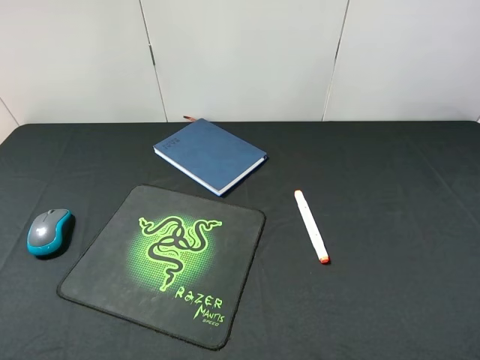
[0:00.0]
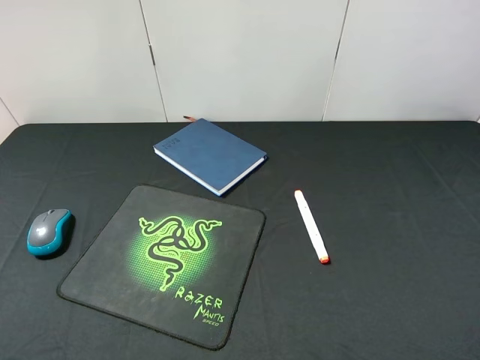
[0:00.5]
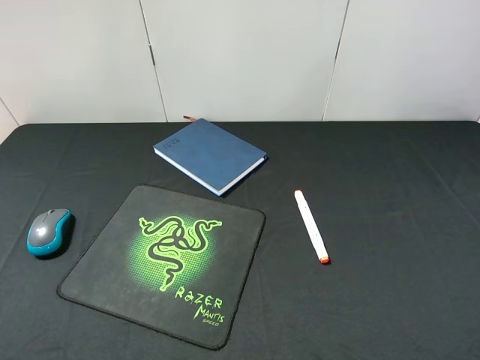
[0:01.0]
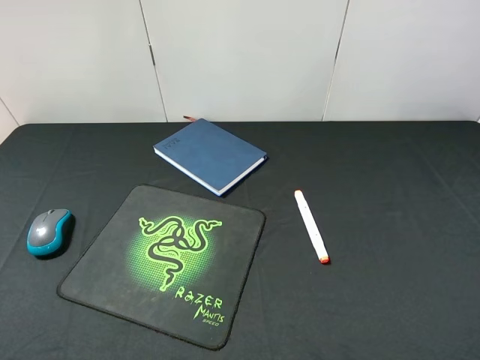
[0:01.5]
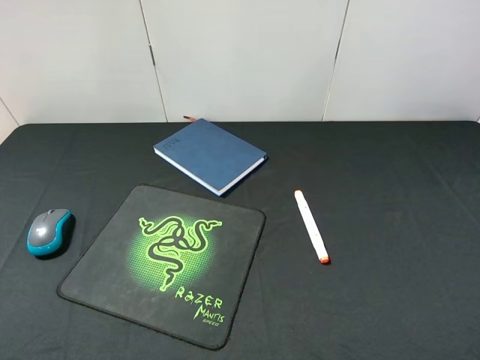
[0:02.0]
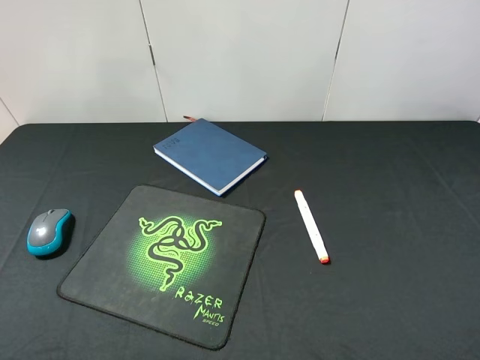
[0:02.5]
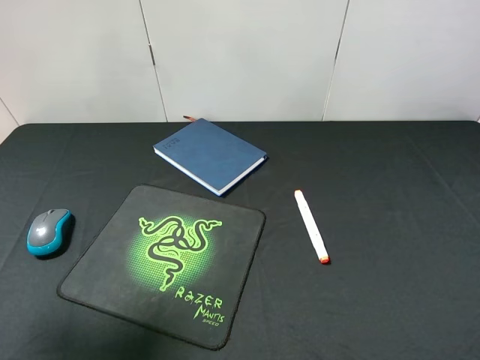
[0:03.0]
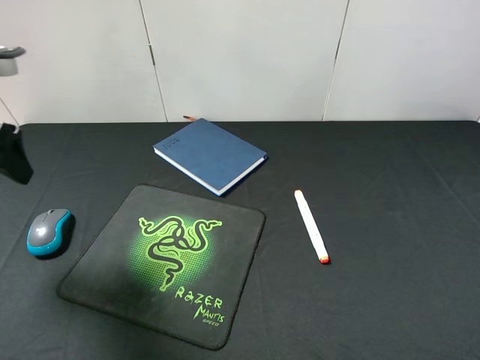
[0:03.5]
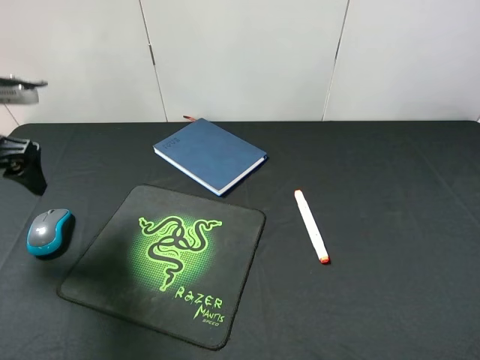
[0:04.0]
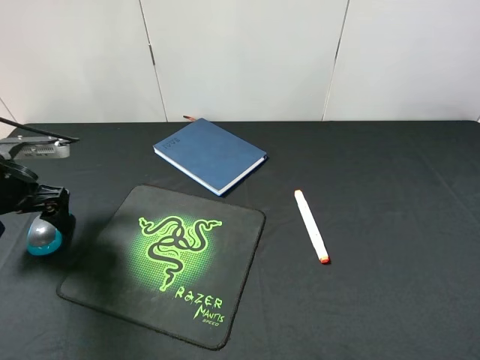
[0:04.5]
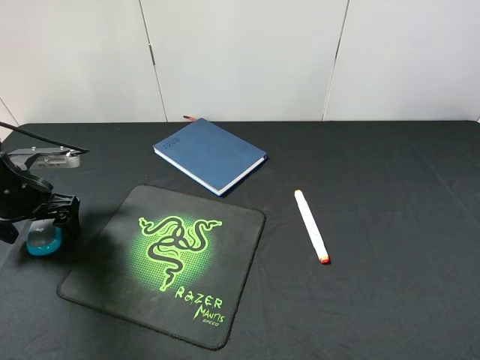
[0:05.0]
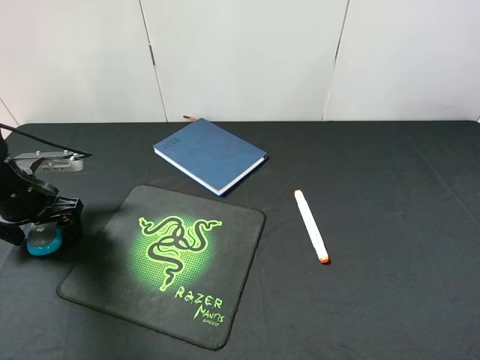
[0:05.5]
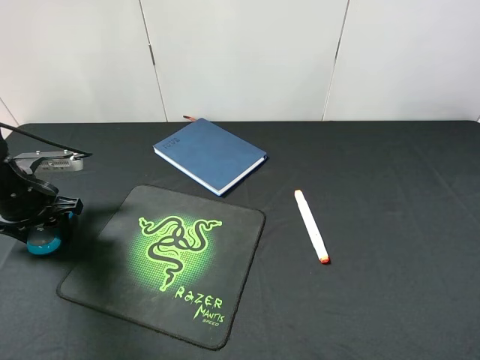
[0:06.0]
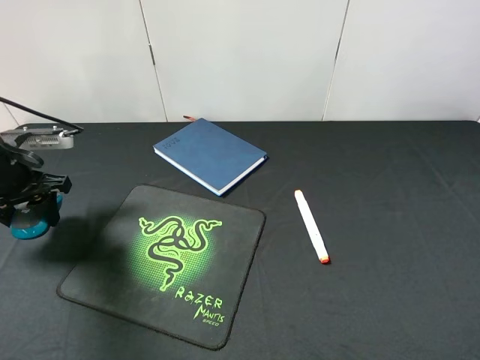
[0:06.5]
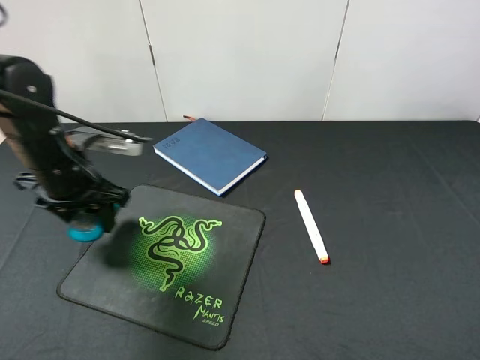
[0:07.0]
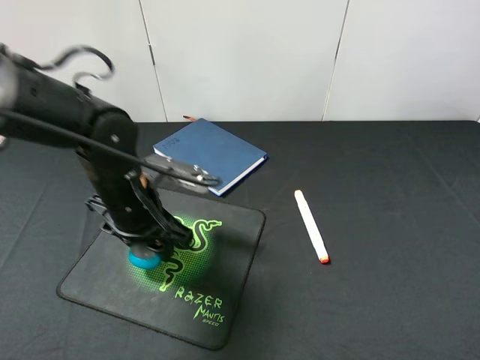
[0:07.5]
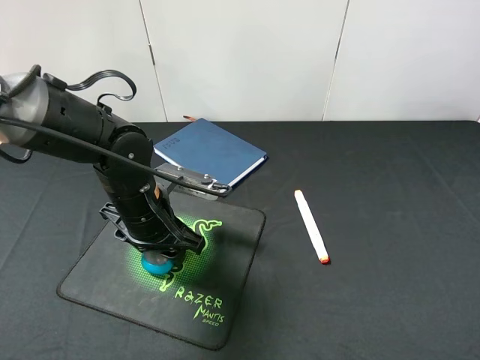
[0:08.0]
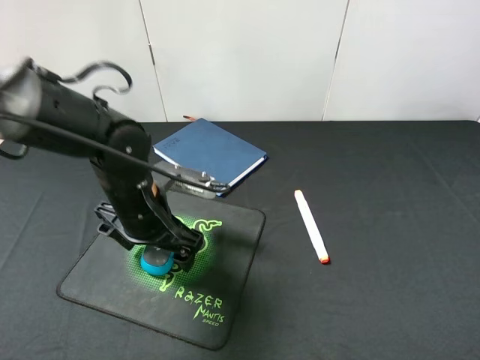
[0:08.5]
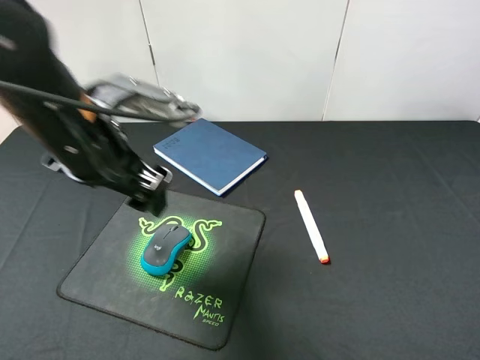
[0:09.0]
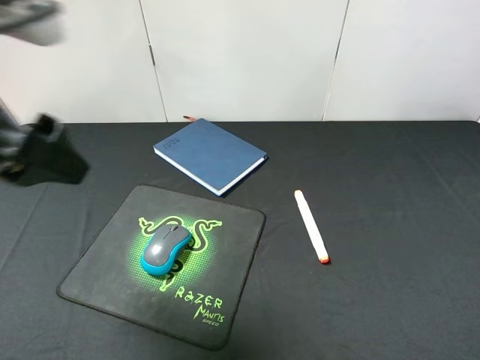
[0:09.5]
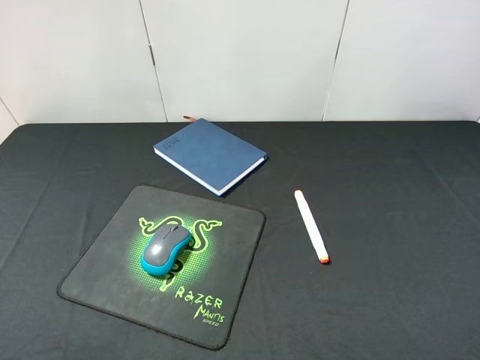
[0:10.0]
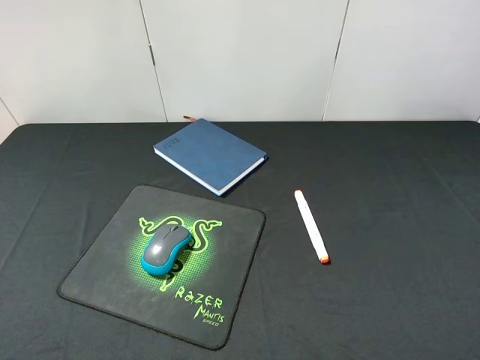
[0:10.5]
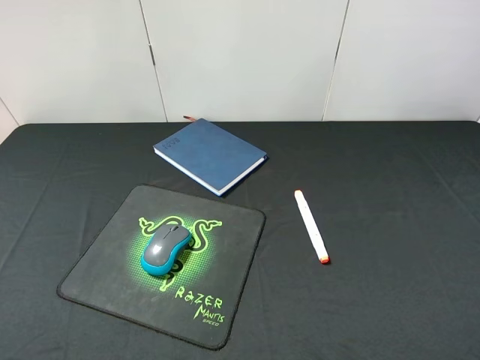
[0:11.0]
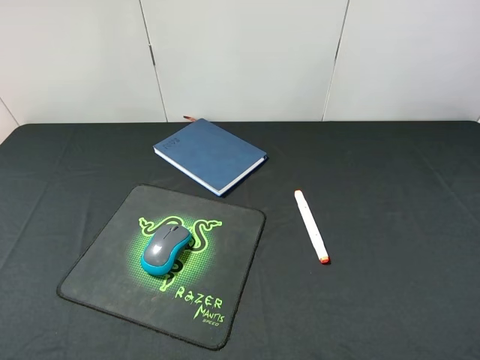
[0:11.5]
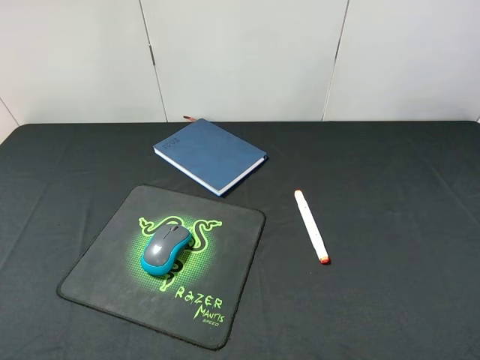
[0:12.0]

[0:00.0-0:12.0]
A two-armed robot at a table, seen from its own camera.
Step, 0:00.0 to 0:06.5: Pick up the mouse with left gripper.
Step, 0:07.0 to 0:08.5: Place the mouse on the mouse pad with left gripper.
0:00.0 to 0:02.0: The two grippers keep their place.
0:02.0 to 0:04.0: The left gripper is displaced forward by roughly 25 cm.
0:04.0 to 0:06.0: The left gripper travels downward by approximately 10 cm, and closes up.
0:06.0 to 0:08.0: The left gripper travels to the right by approximately 20 cm.
0:08.0 to 0:10.0: The left gripper goes approximately 35 cm upward, backward and to the left, and opens.

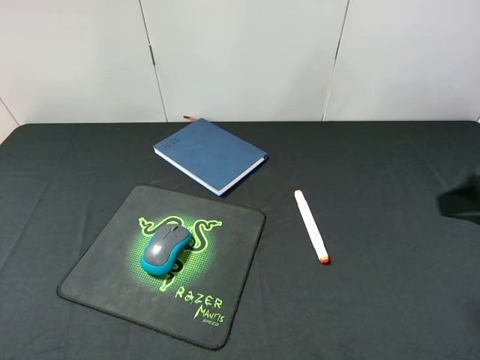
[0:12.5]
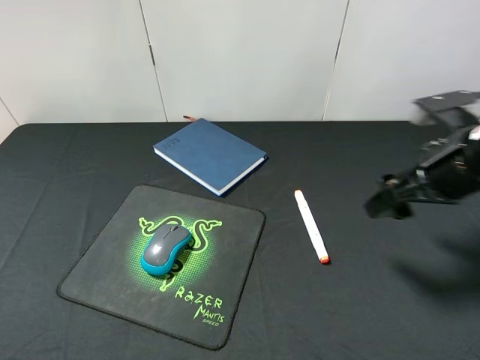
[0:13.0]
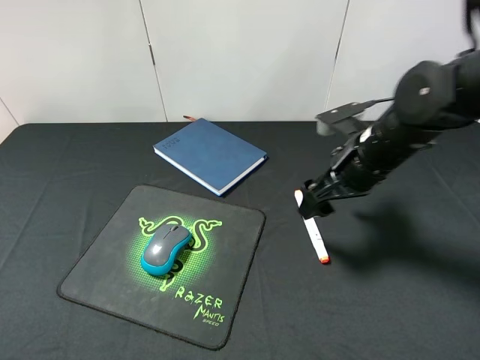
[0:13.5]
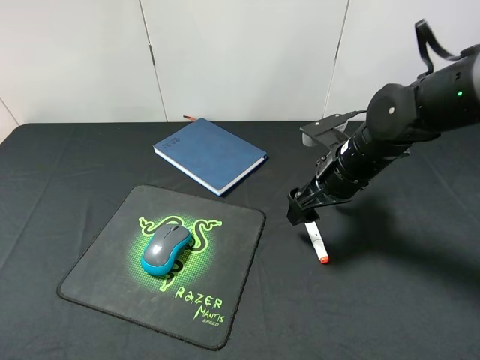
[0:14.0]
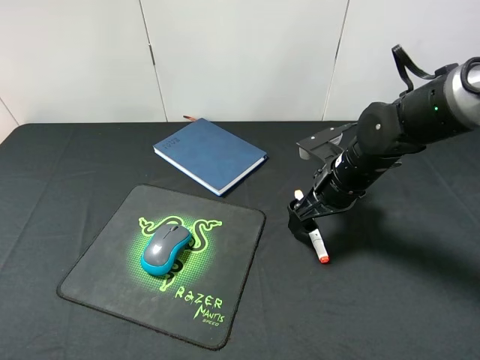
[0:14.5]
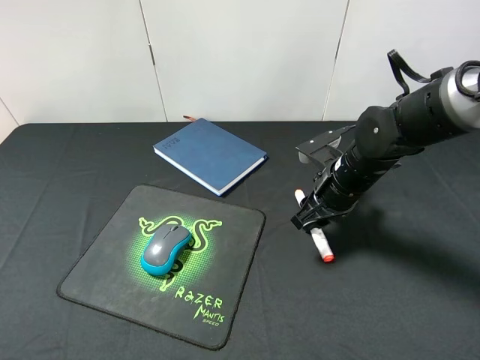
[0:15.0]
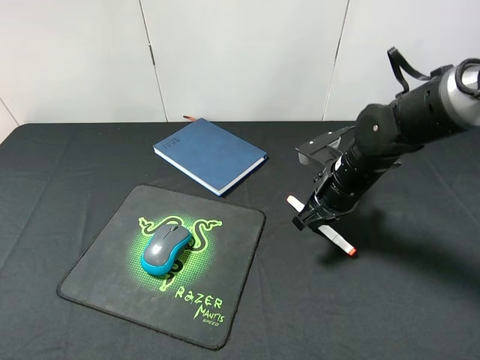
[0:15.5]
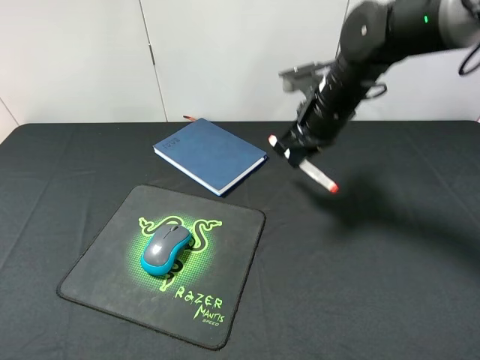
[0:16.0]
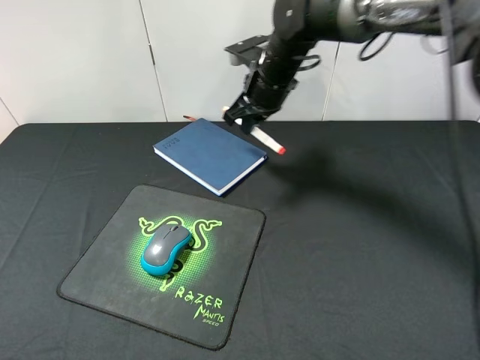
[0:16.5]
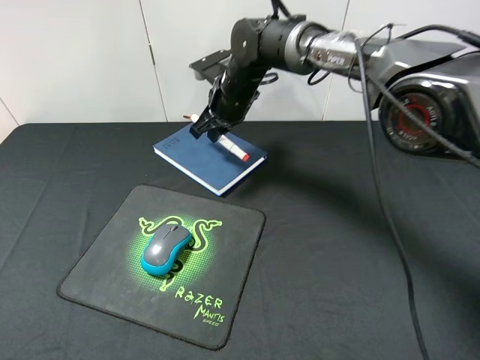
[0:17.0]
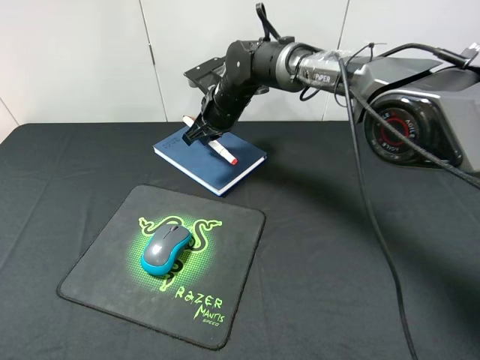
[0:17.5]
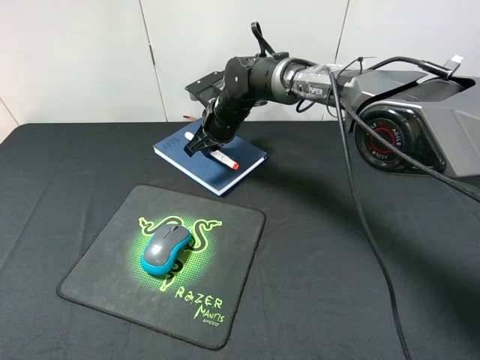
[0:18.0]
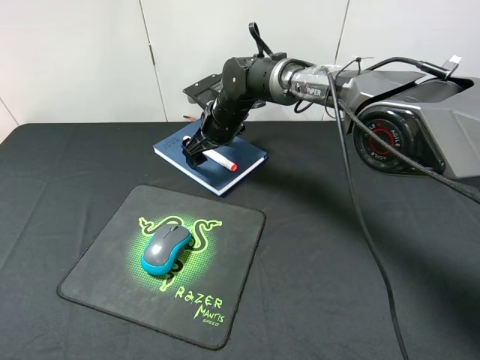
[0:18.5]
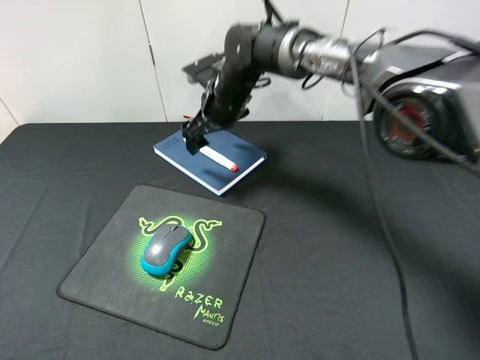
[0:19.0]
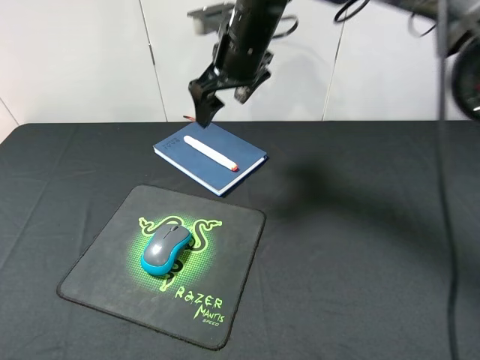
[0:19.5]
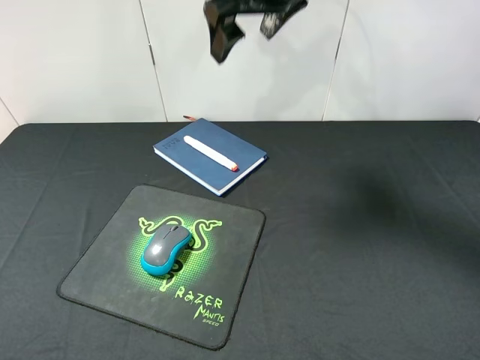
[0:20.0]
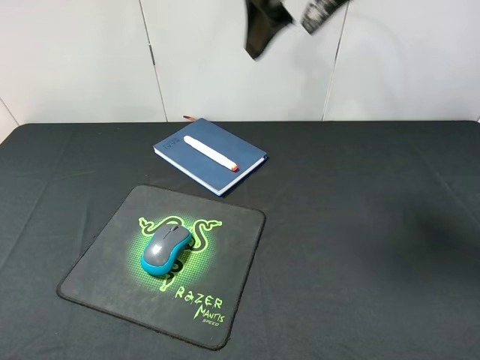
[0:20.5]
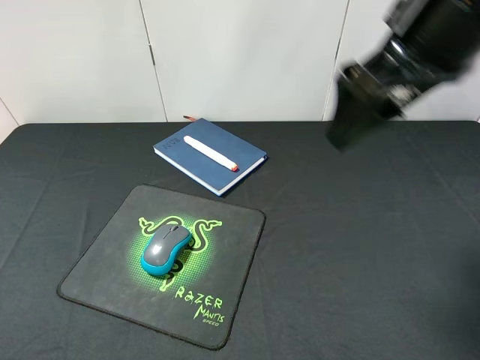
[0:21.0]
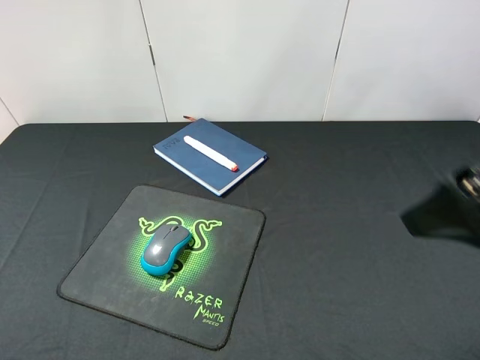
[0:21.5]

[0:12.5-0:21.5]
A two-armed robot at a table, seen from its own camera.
Step, 0:12.5 to 0:15.5: Pick up the marker pen with right gripper.
Step, 0:16.0 to 0:19.0: Place the marker pen on the notebook with right gripper.
0:12.5 to 0:14.5: The right gripper heads downward, forward and to the left, covering about 25 cm.
0:14.5 to 0:17.0: The right gripper goes roughly 20 cm to the left and forward, and closes.
0:17.0 to 0:19.5: The right gripper is displaced upward by roughly 10 cm, and opens up.
0:19.5 to 0:21.5: The right gripper moves backward and to the right, roughly 35 cm.
